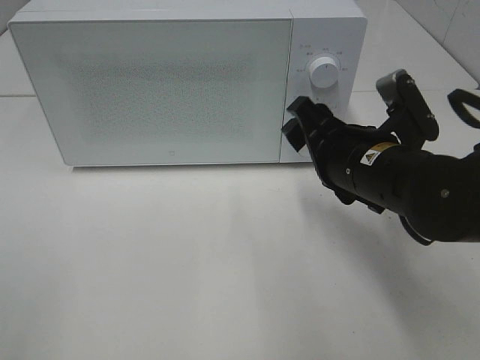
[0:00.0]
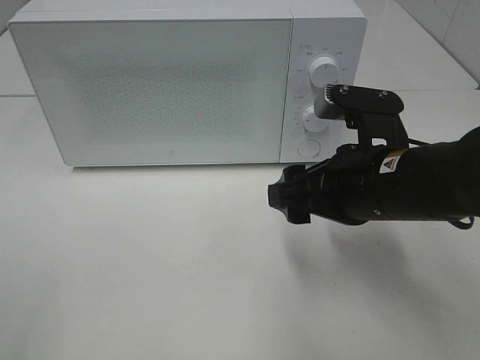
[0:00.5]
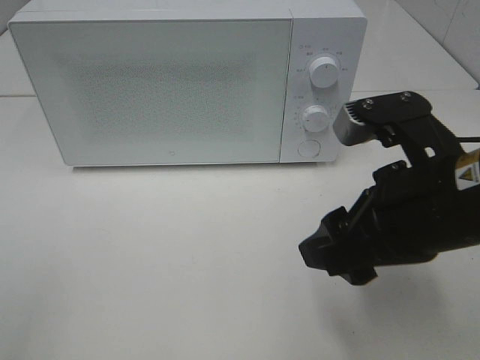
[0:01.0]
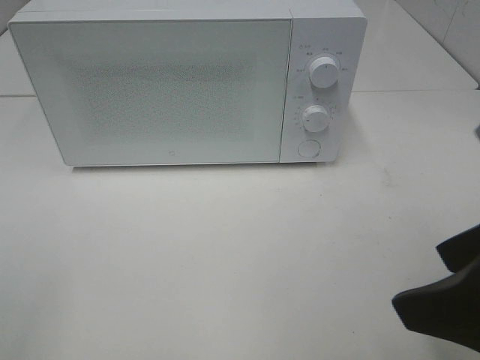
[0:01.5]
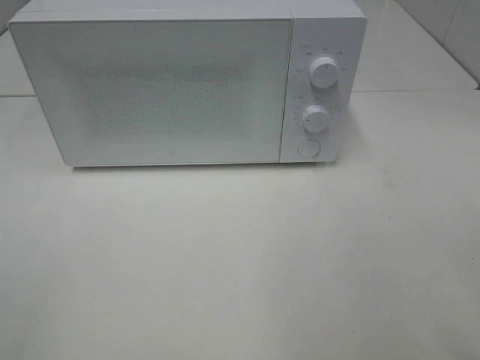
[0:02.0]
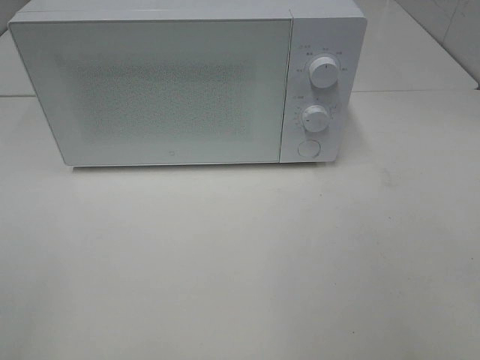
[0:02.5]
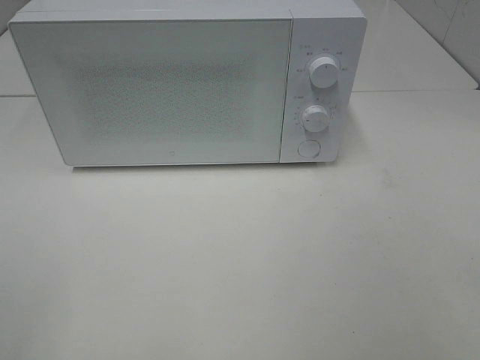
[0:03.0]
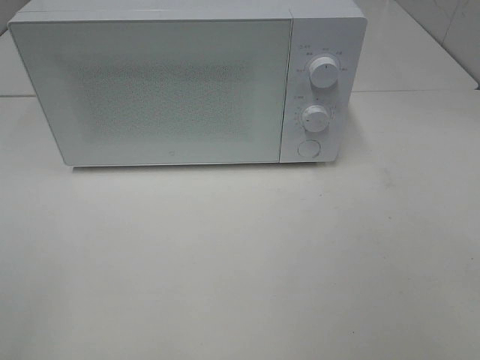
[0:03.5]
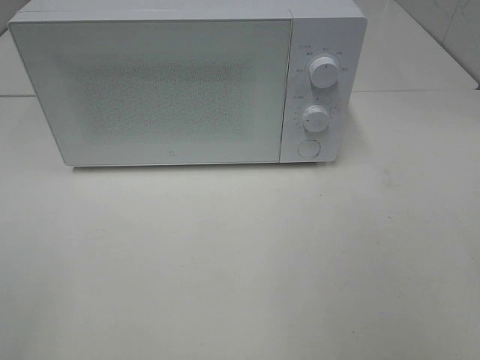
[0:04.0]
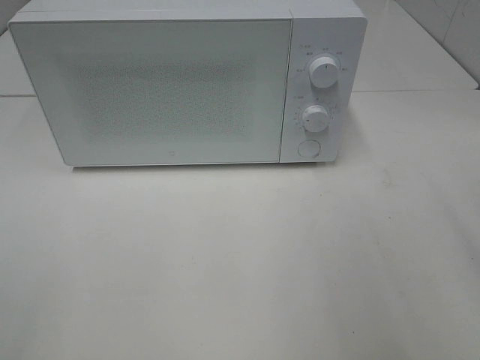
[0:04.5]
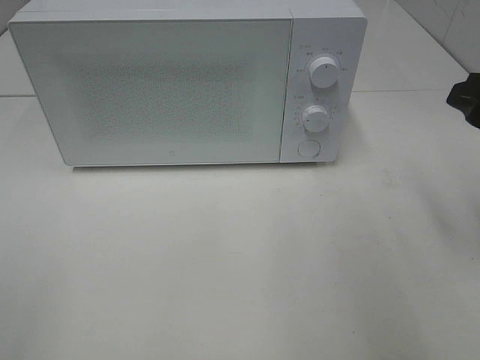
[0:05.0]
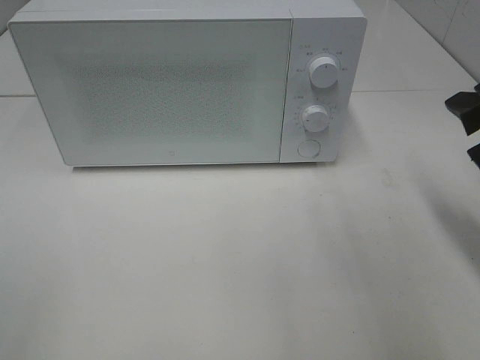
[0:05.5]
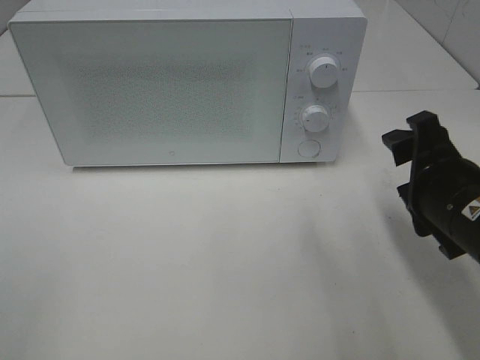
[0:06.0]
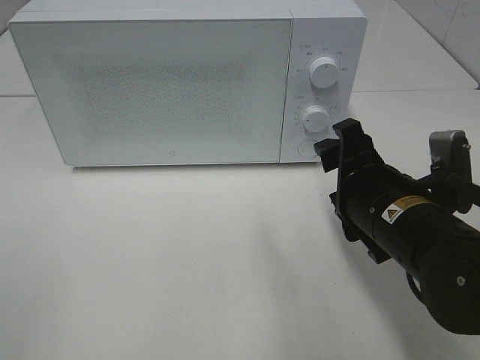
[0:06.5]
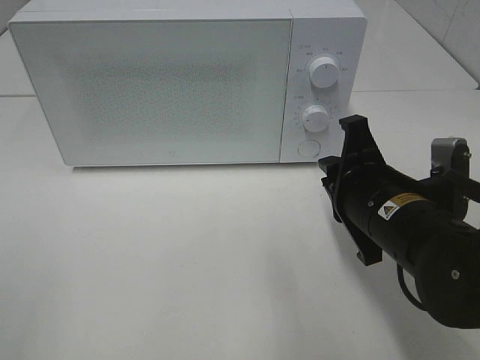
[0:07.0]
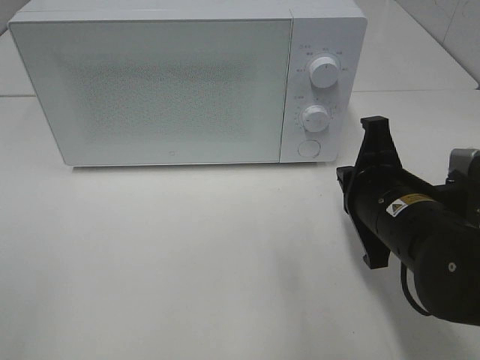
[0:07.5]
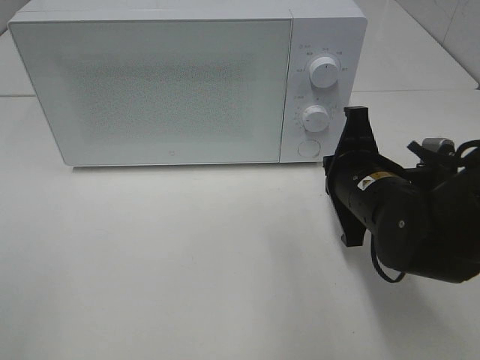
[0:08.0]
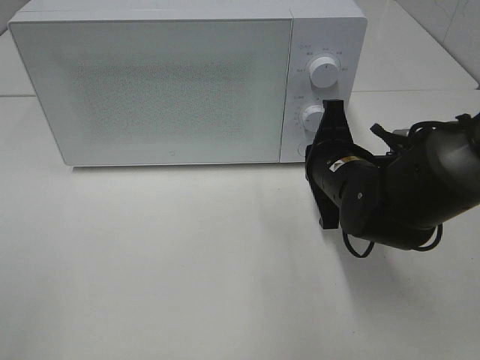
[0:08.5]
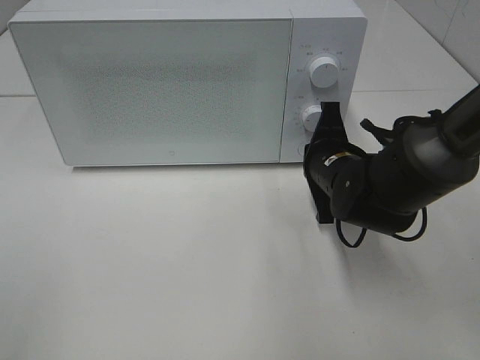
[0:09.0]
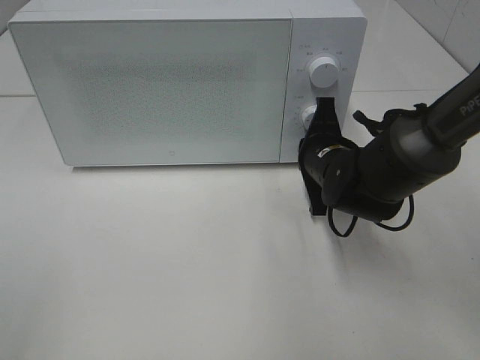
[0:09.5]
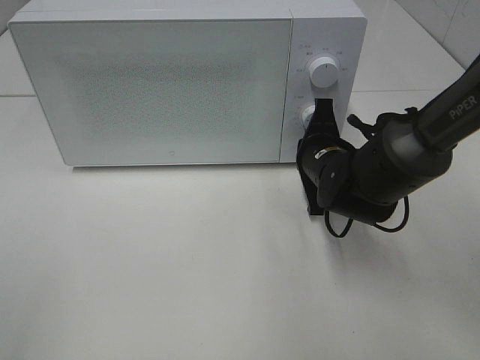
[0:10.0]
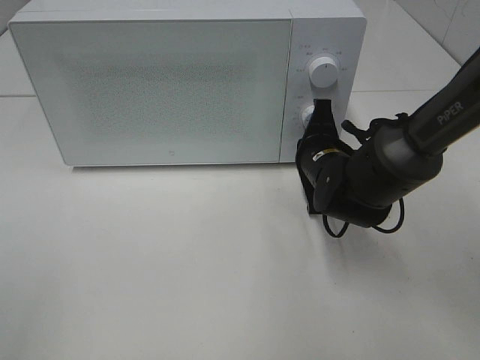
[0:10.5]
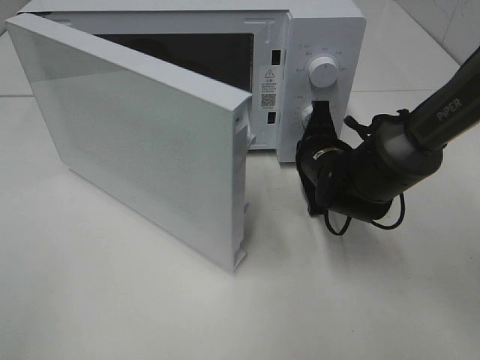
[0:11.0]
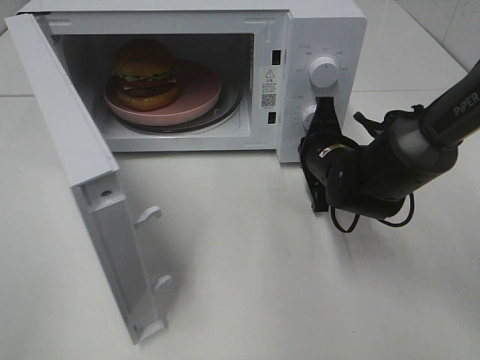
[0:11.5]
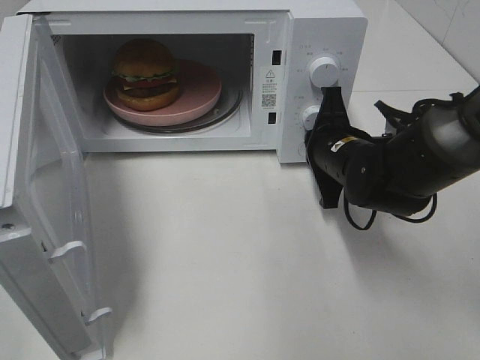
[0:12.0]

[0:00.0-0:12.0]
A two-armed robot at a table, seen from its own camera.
Task of the whole recording: Heat the burger.
Step, 0.0 to 12.0 s: Right hand: press the switch.
0.0 to 2.0 s: The right gripper shifts some 25 cm backward, upward and to the right.
4.0 to 6.0 s: The right gripper moves downward, forward and to the left, approximately 20 cm.
6.0 to 8.0 s: The right gripper shifts about 10 cm to the left and forward, and closes its fingers.
8.0 to 10.0 s: The right gripper heads forward, covering approximately 10 cm.

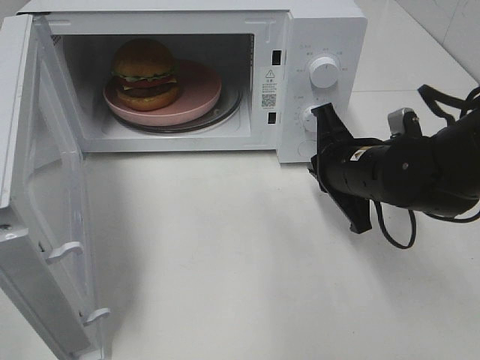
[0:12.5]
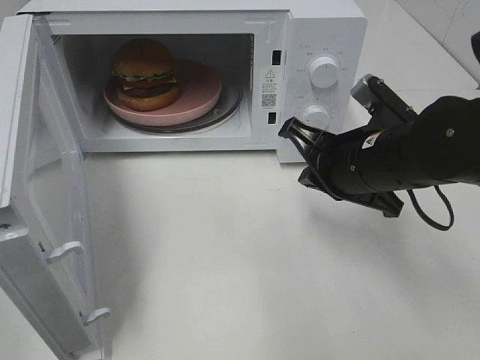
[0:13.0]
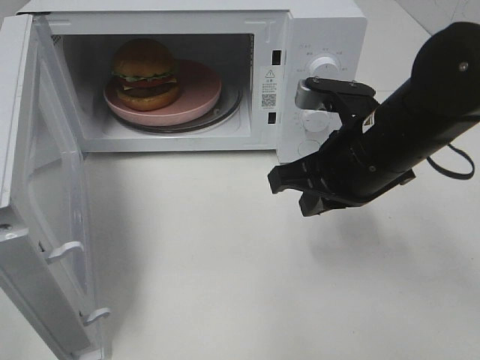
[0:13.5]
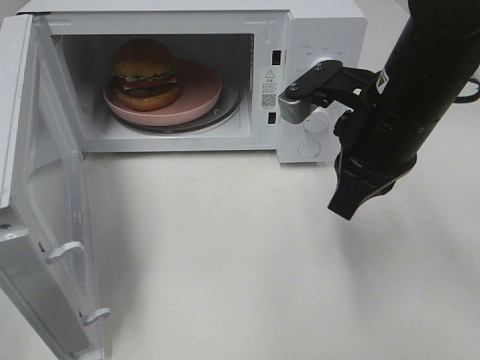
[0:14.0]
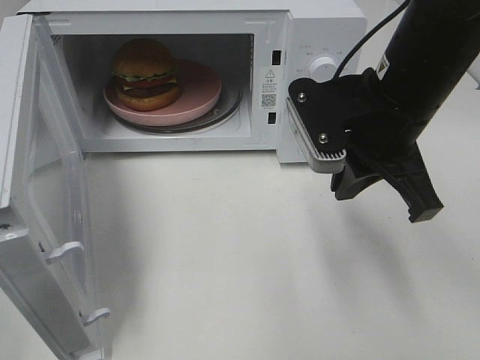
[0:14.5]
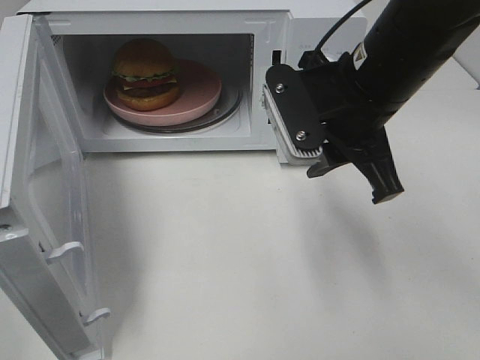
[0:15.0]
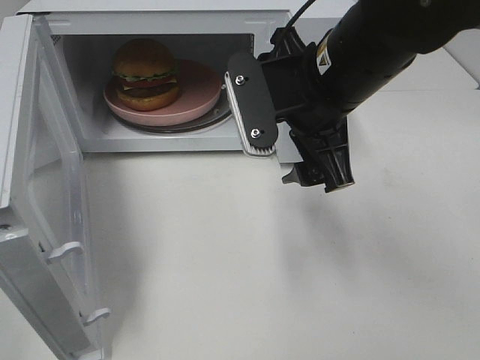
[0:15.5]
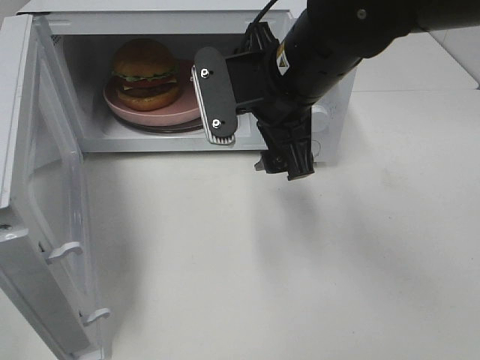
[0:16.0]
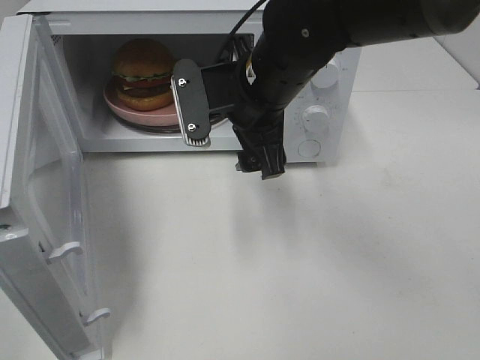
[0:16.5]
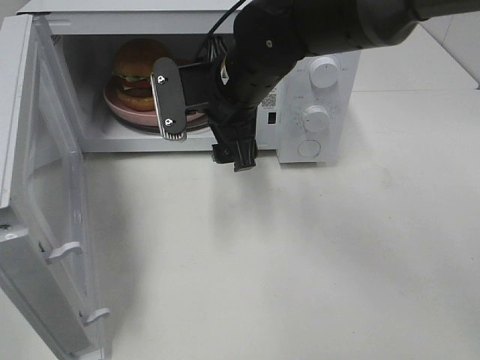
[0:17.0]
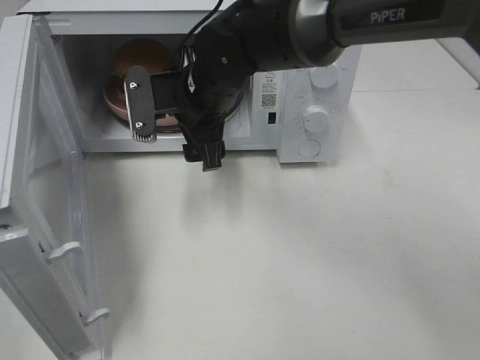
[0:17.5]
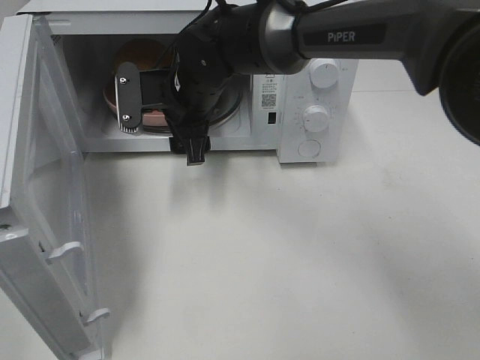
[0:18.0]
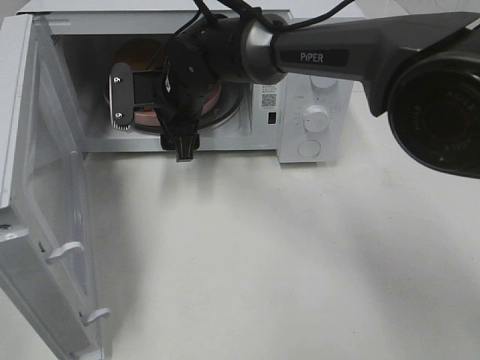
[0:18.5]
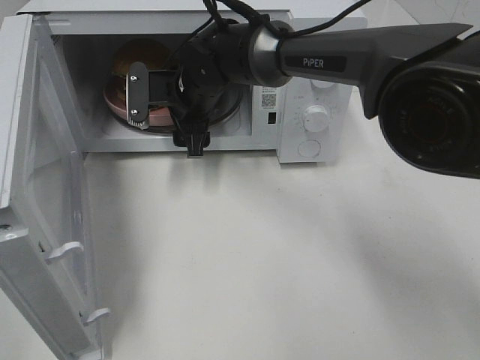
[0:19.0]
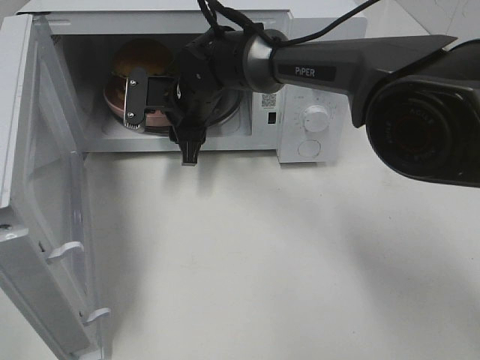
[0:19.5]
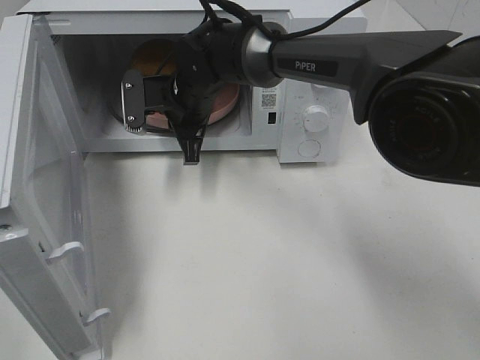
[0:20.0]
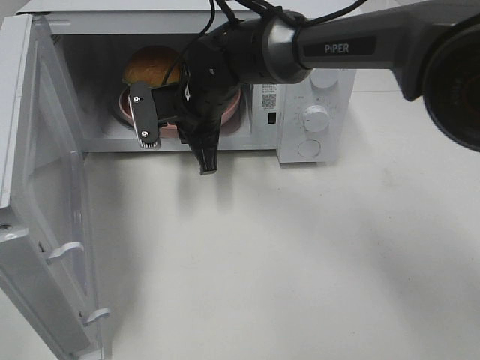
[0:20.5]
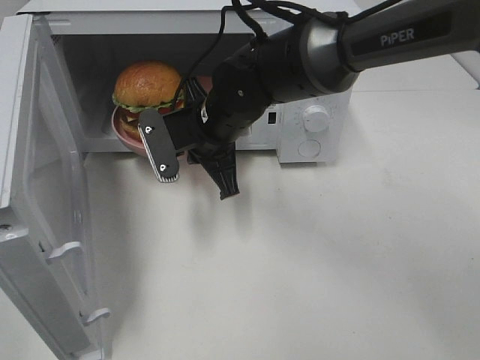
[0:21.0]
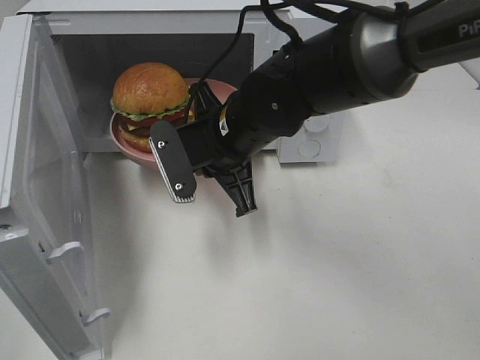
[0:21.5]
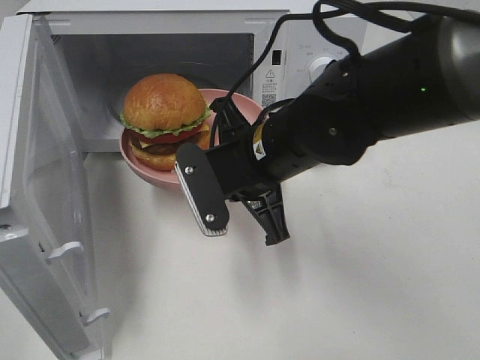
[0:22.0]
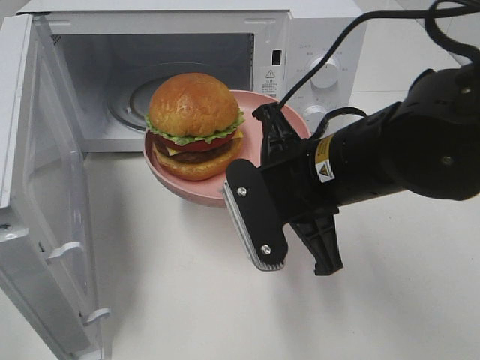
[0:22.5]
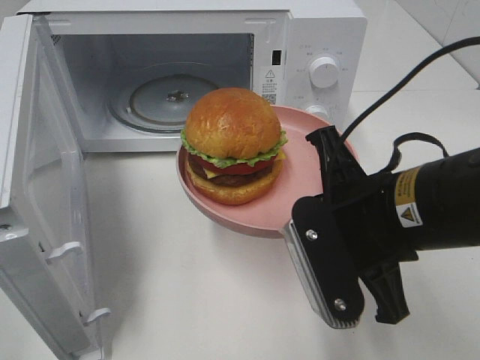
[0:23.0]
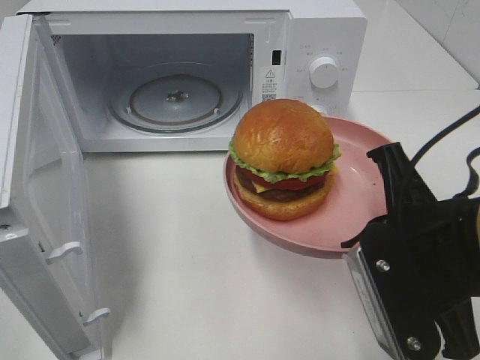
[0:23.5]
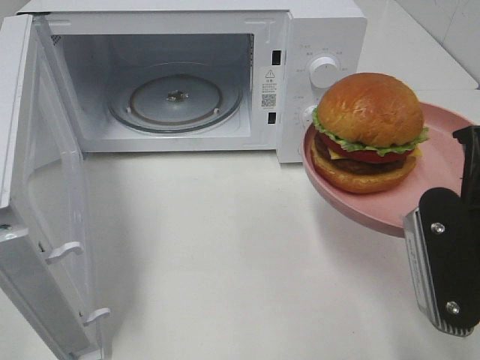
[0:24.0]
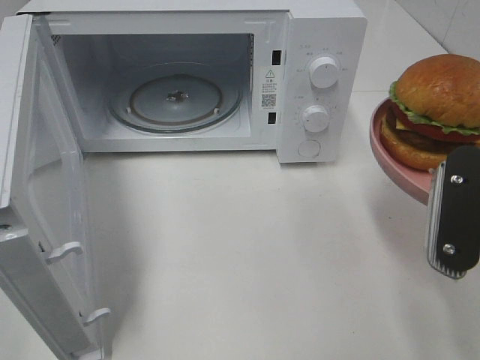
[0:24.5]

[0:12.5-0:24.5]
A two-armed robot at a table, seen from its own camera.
Task of the whole recording: Heat the burger.
Step, 12.5 to 19.5 s: Right hand: grab the plate with the hamburger.
12.5 to 14.5 s: The right gripper shifts some 10 cm upward.
14.5 to 16.5 s: The right gripper moves to the left and forward, roughly 10 cm, and opens its fingers.
16.5 to 18.5 s: The right gripper travels forward, to the left and downward by some 15 cm.
18.5 to 20.5 s: The right gripper closes its fingers.
20.5 to 22.5 s: The right gripper is displaced backward and to the right by about 20 cm.
22.5 to 24.5 s: The right gripper moves to the right and backward, approximately 15 cm.

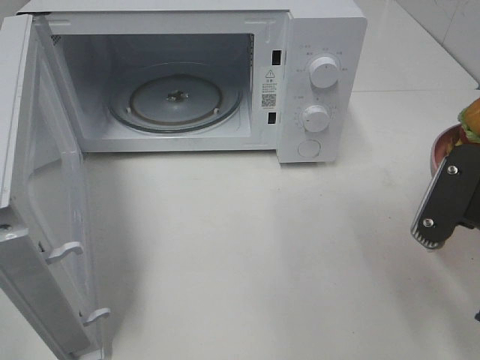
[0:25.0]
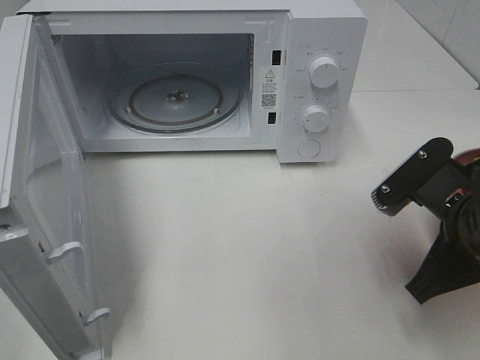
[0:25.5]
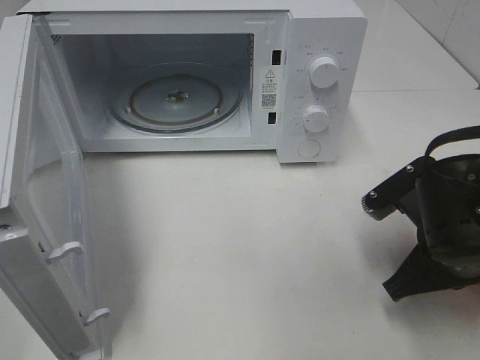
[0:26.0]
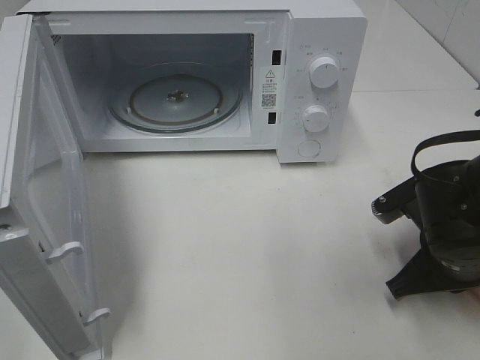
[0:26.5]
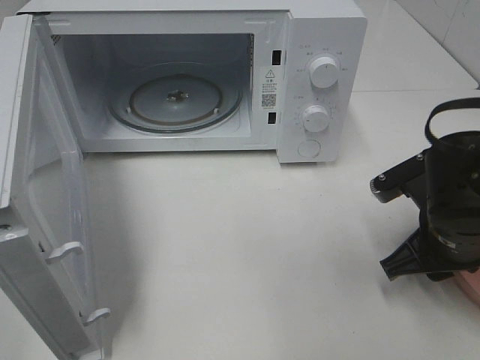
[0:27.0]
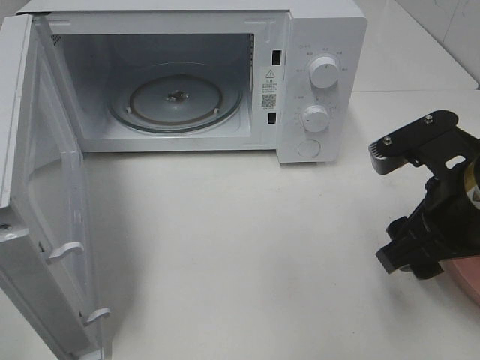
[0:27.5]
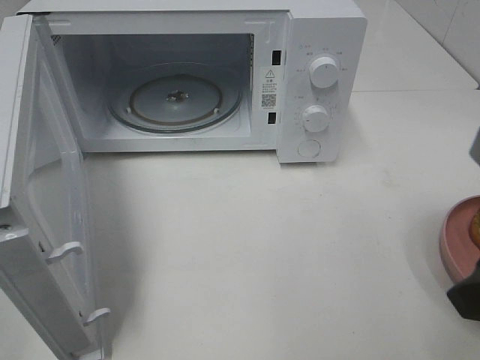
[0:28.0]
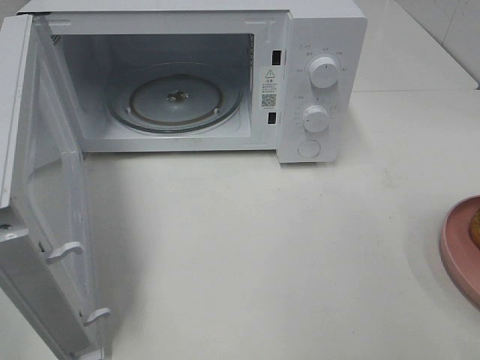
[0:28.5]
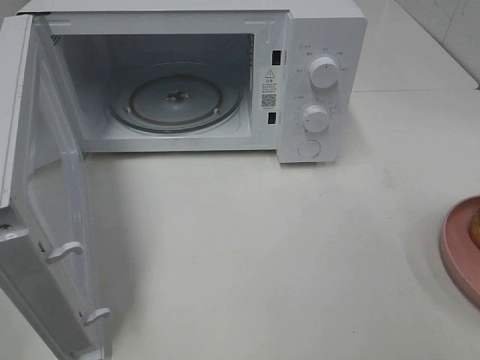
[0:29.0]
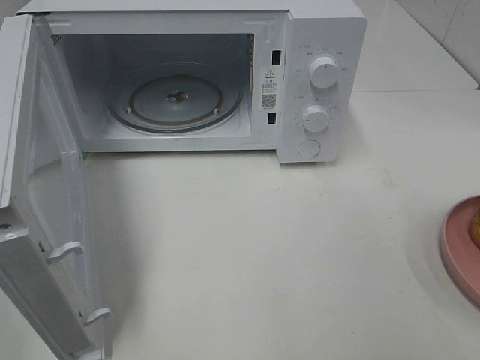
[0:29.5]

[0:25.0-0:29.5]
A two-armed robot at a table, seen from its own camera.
Task of the whole recording: Heat the burger.
25.0 to 27.0 s: The right gripper is displaced downward and forward by approximately 10 cm, and opens.
27.0 to 29.5 s: The right gripper is displaced backward and upward by some 30 cm.
